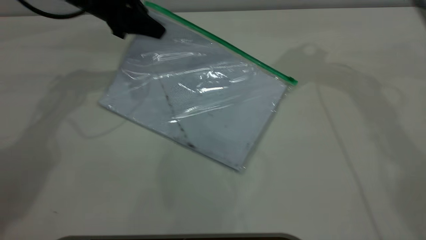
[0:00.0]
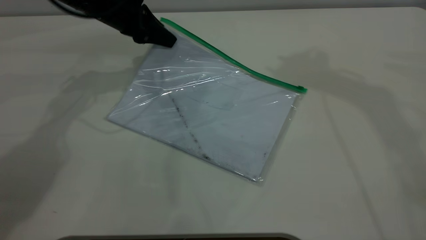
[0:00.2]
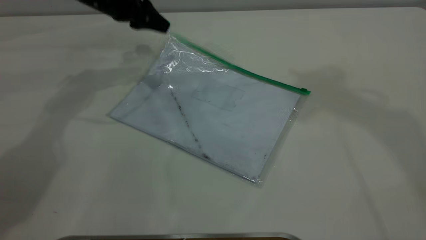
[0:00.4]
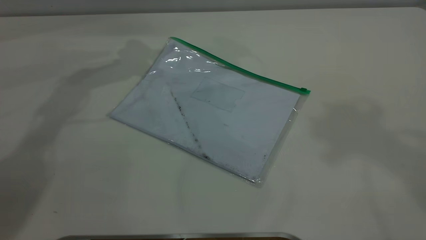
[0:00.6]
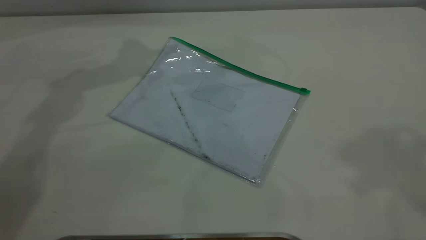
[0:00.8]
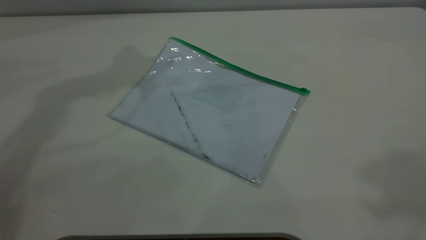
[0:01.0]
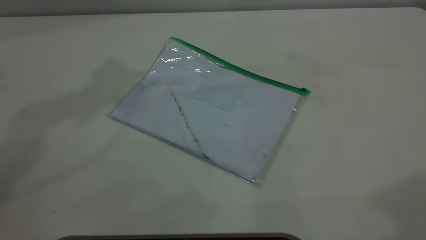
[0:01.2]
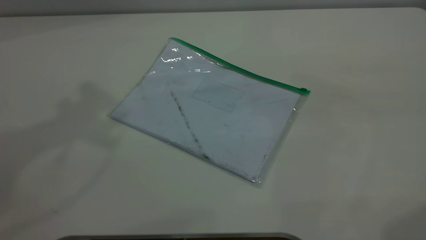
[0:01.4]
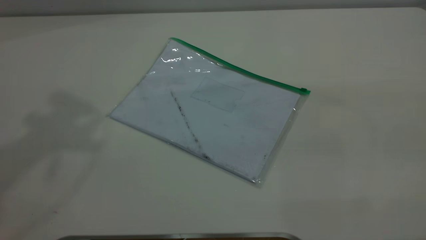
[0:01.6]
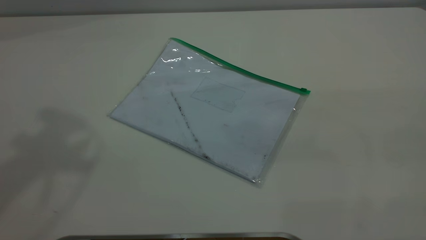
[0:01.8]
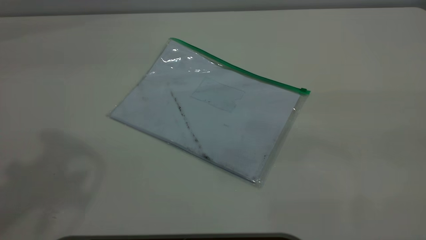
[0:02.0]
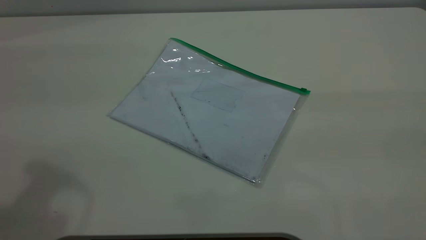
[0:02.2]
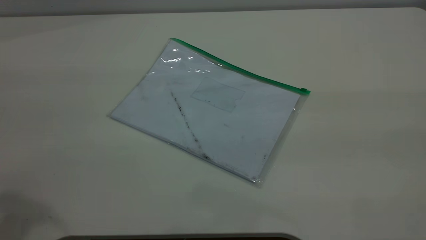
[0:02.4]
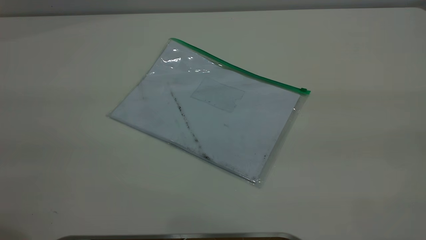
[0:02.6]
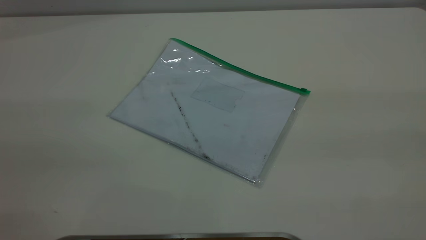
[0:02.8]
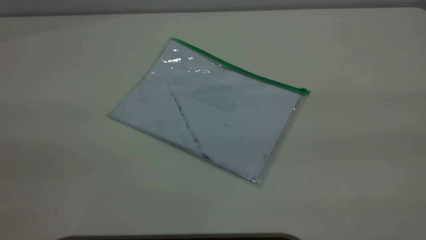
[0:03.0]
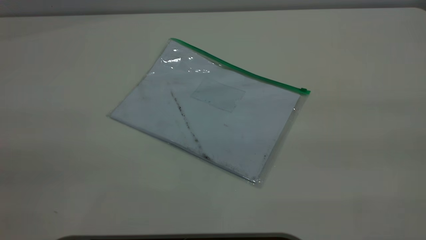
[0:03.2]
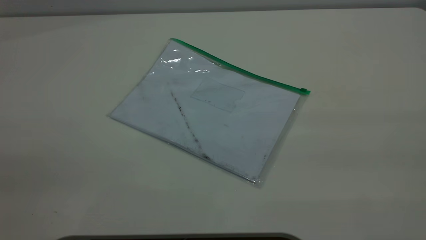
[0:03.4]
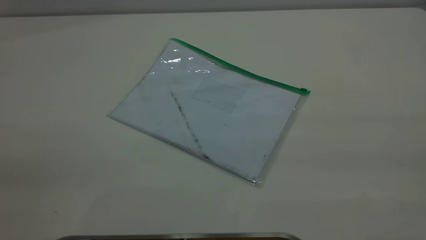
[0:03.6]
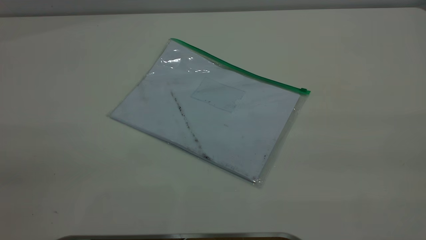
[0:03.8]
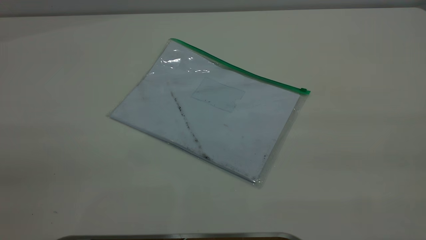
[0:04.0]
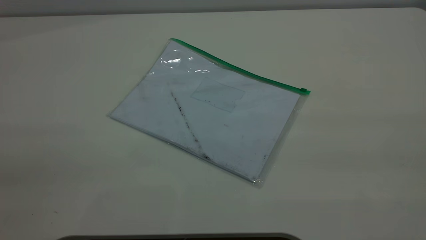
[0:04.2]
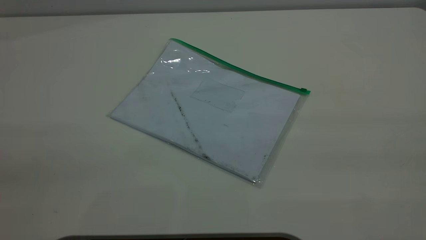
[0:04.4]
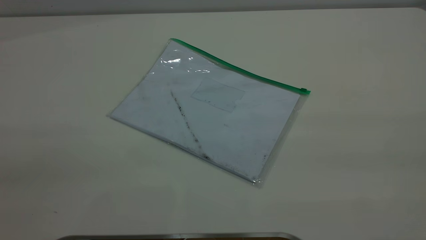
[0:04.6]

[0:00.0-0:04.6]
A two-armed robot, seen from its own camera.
Step, 0:00.0 to 0:00.4: Place the transparent plastic bag.
0:00.0 to 0:01.6: The left gripper travels upward and backward by roughly 40 cm, and opens its fingers; the right gripper shifts roughly 40 cm backward.
